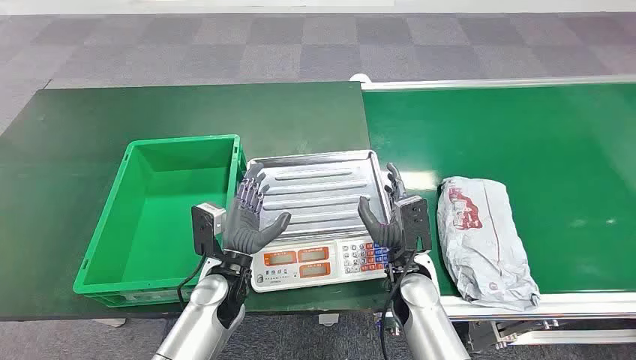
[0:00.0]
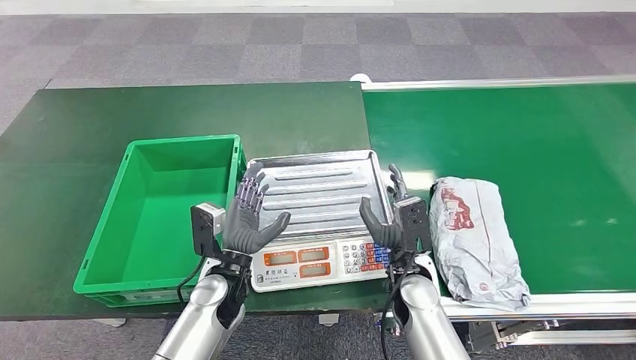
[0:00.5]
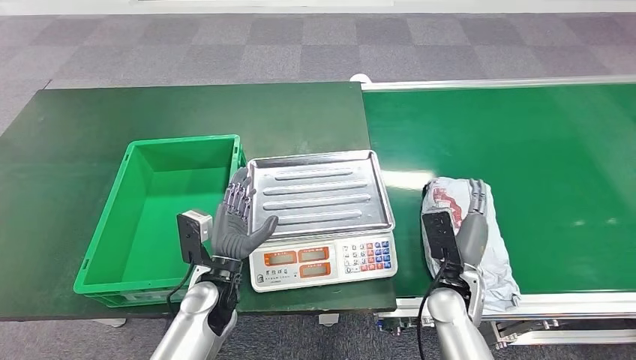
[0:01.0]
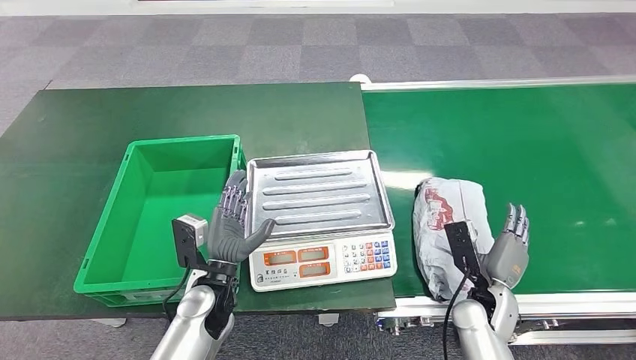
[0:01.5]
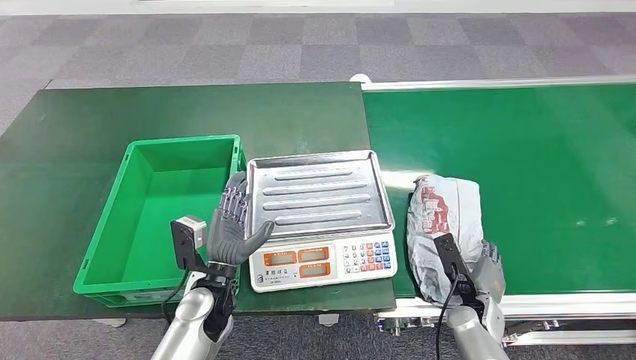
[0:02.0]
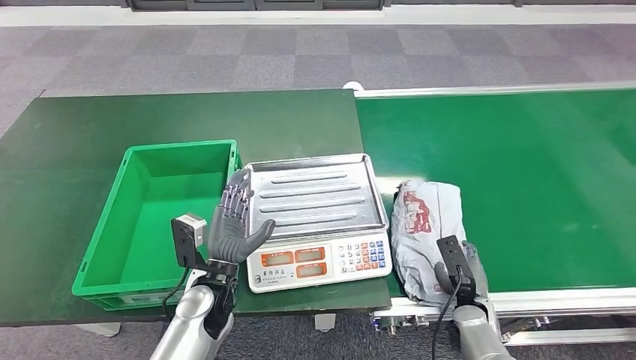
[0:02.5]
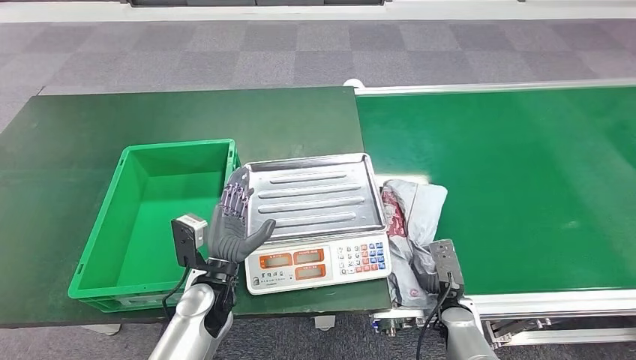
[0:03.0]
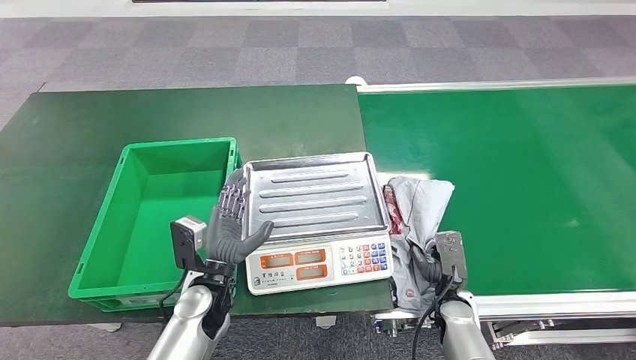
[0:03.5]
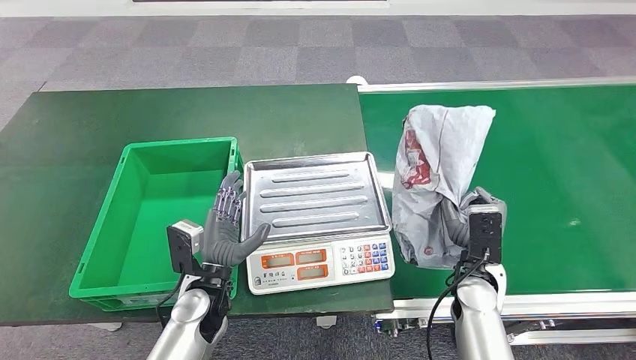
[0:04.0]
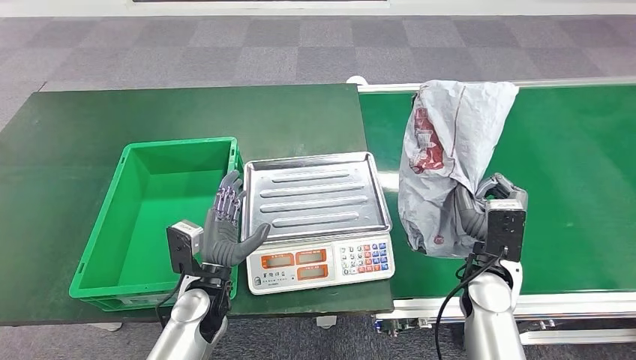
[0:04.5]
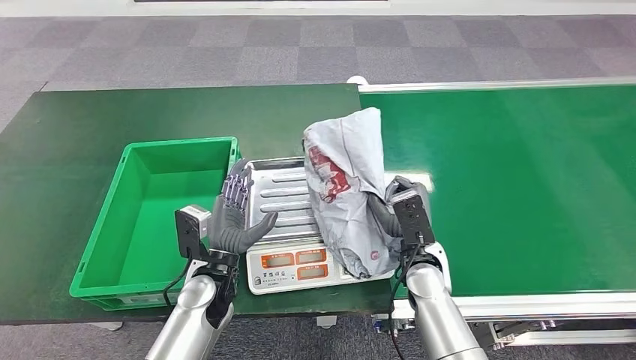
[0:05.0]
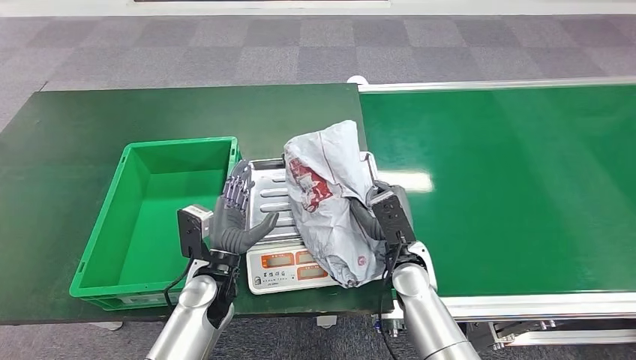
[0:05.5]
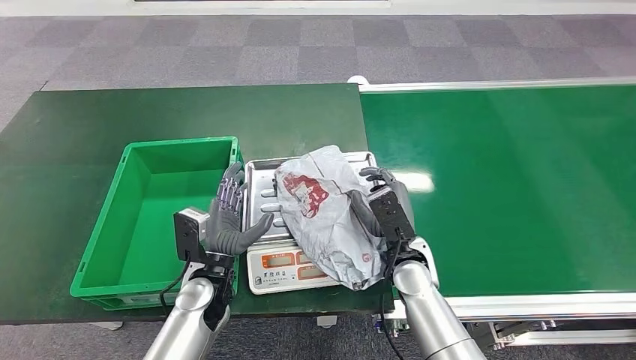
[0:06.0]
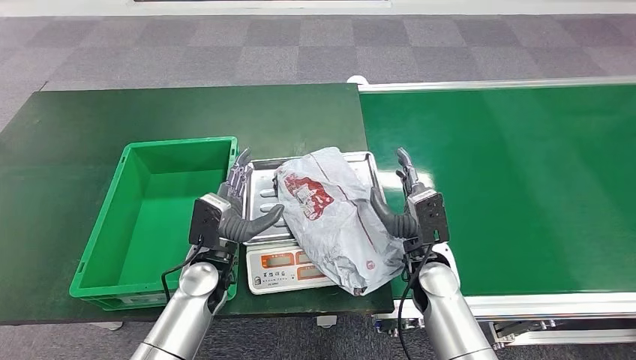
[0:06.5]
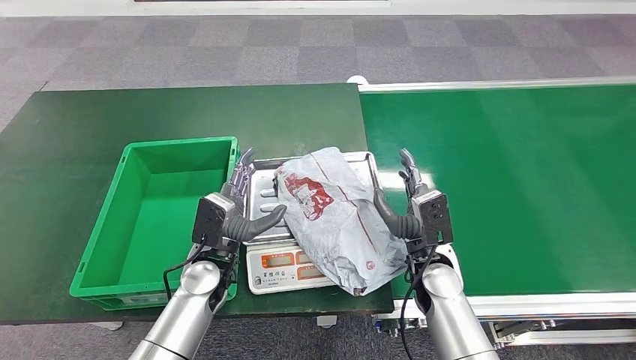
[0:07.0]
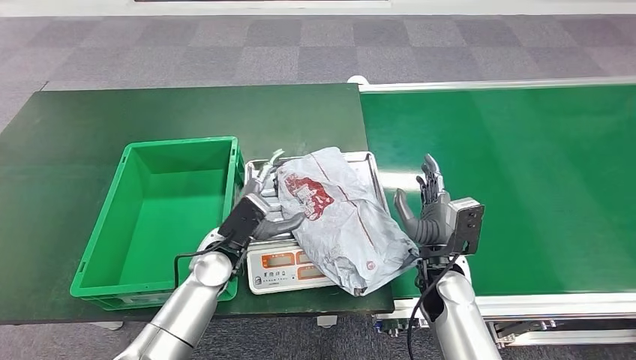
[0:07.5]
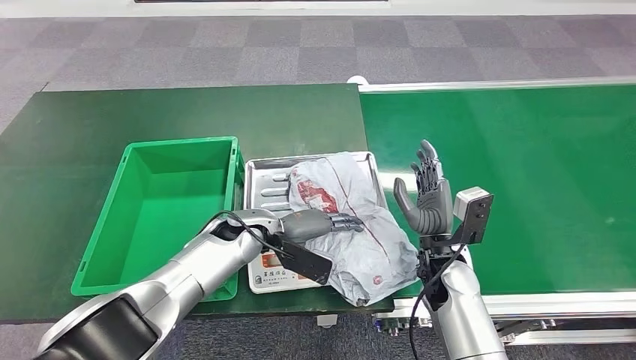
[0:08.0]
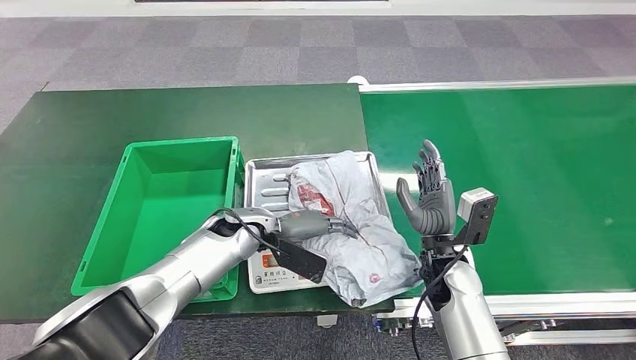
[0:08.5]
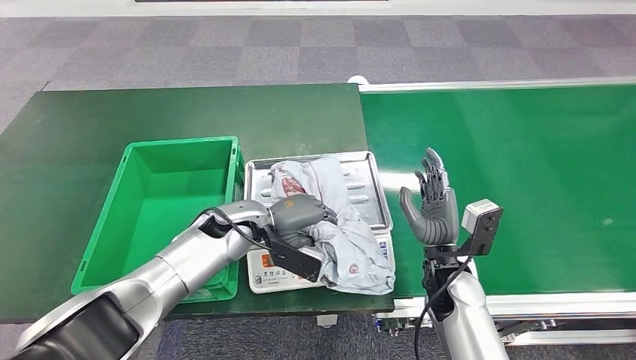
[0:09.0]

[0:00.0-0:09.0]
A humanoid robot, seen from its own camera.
Step, 0:00.0 to 0:04.0: Pick up the package from the conveyor belt.
Step, 0:04.5 to 0:07.0: Place the package onto the inbound machine.
0:07.0 to 0:09.0: The left hand travels forward by roughly 5 cm.

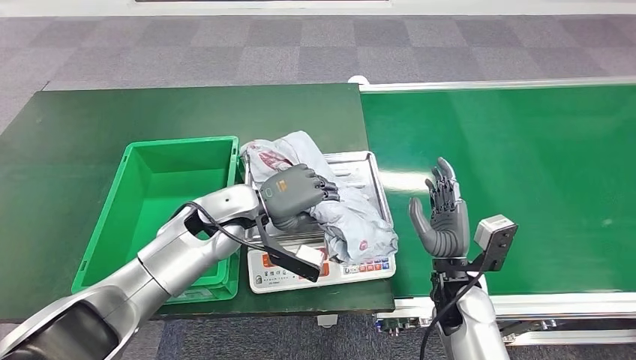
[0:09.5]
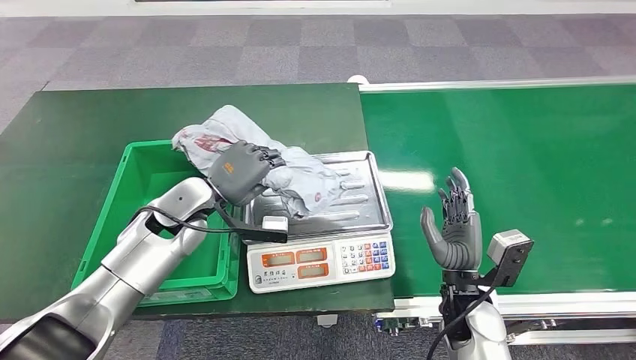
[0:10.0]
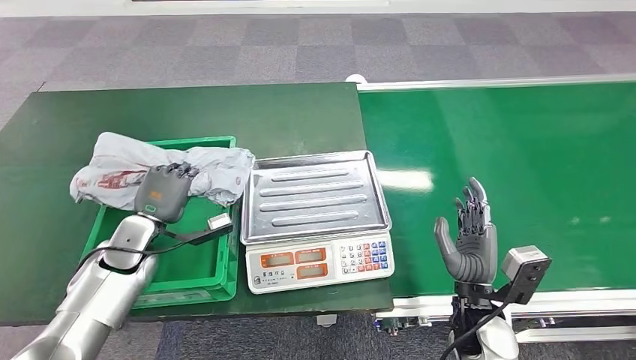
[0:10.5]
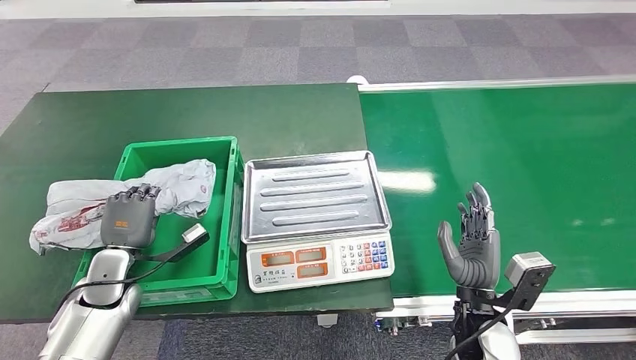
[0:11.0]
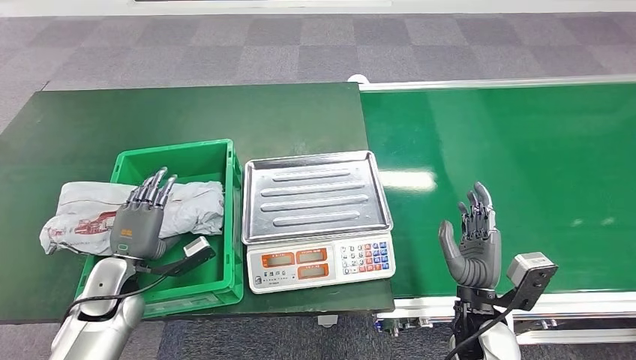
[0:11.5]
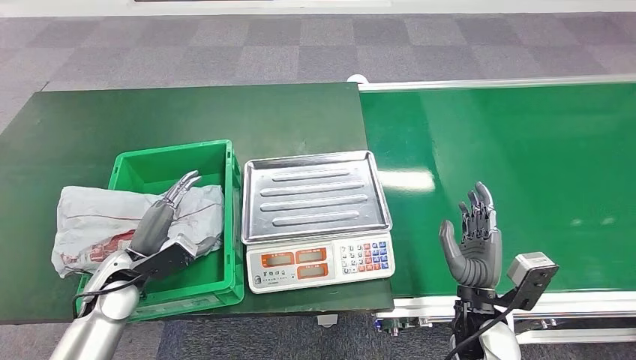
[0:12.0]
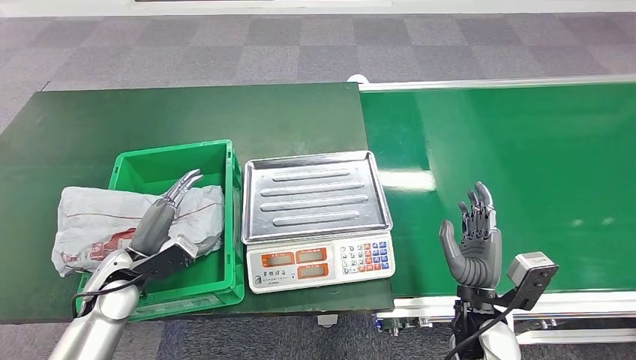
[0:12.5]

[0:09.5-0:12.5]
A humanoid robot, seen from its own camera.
Step, 0:11.0 to 0:12.5: Place the package into the parcel locker.
